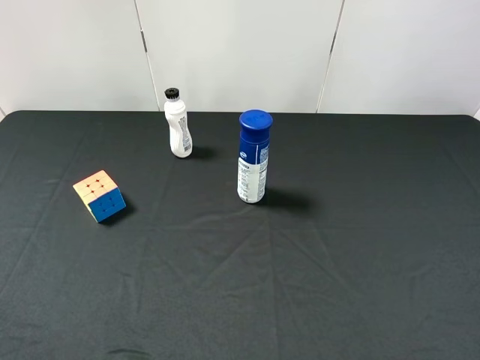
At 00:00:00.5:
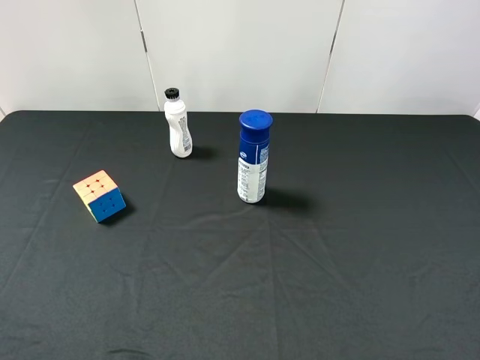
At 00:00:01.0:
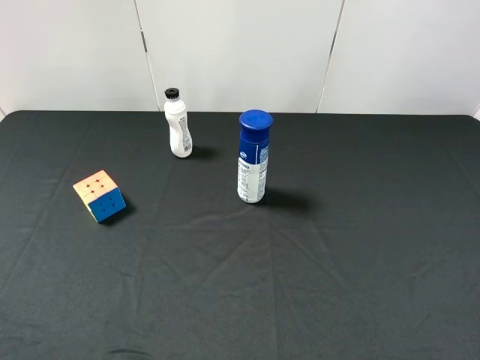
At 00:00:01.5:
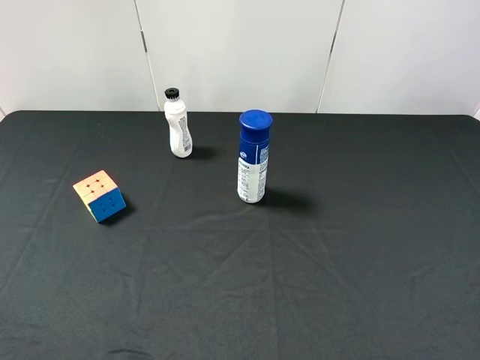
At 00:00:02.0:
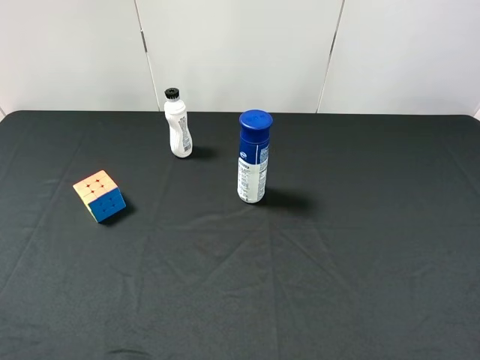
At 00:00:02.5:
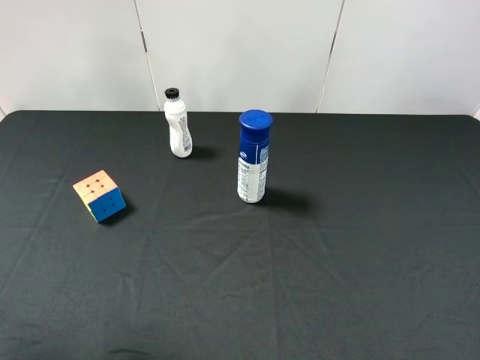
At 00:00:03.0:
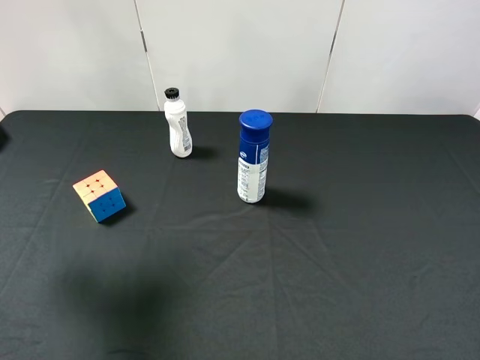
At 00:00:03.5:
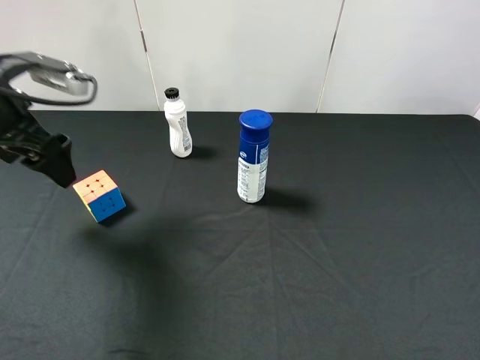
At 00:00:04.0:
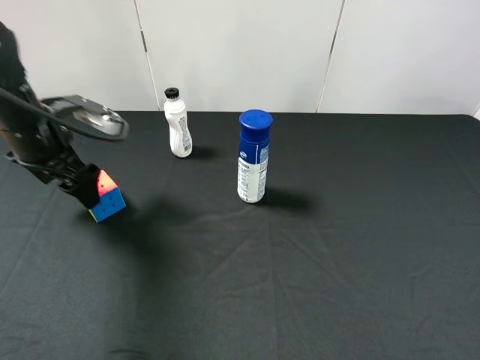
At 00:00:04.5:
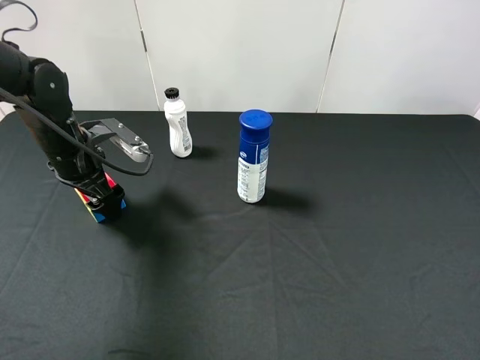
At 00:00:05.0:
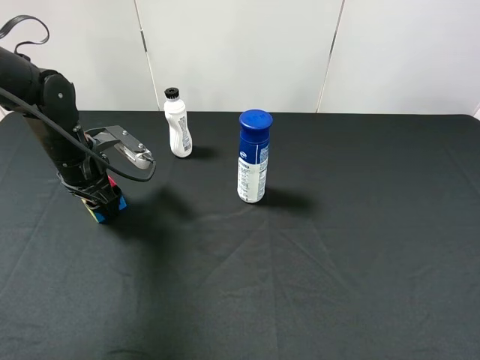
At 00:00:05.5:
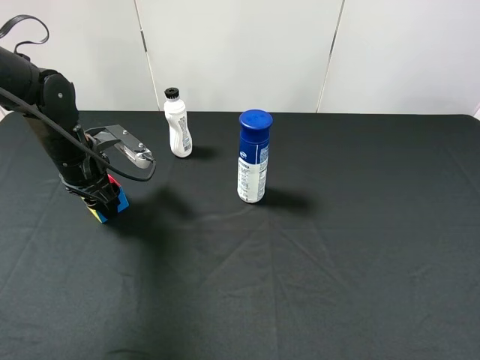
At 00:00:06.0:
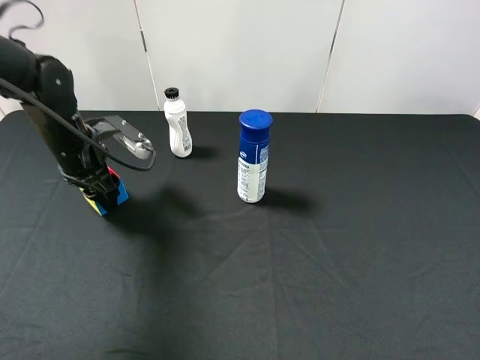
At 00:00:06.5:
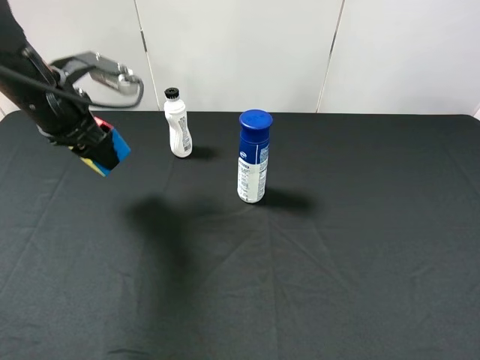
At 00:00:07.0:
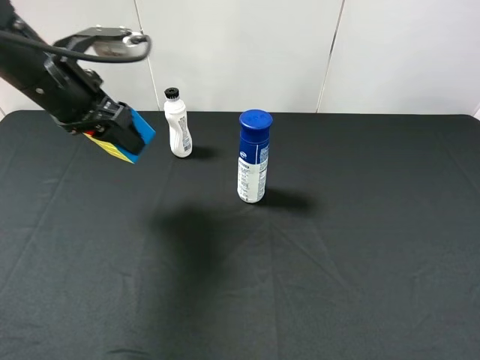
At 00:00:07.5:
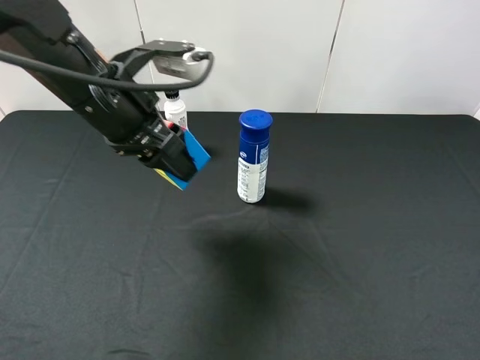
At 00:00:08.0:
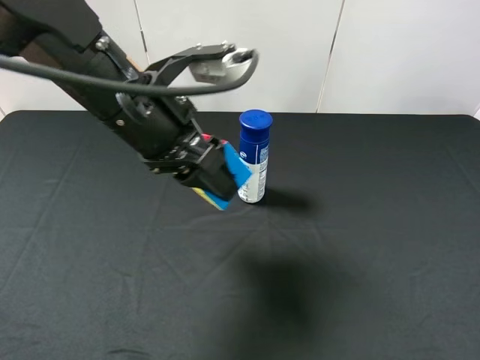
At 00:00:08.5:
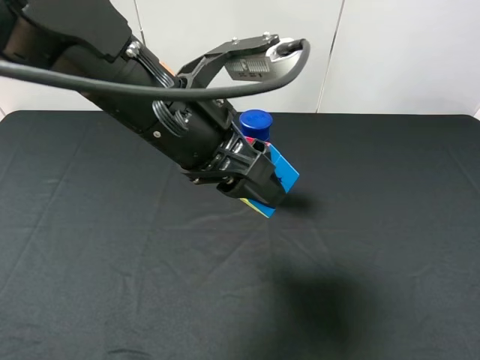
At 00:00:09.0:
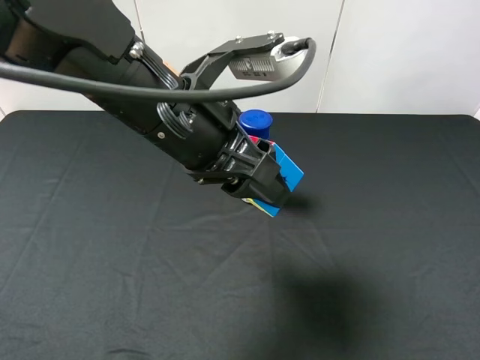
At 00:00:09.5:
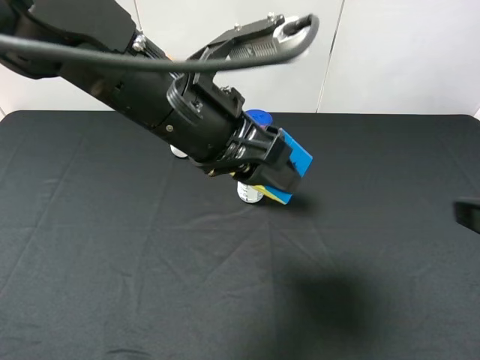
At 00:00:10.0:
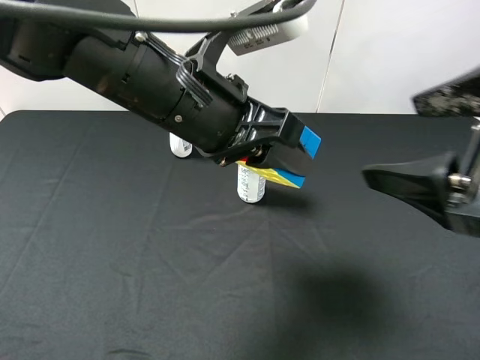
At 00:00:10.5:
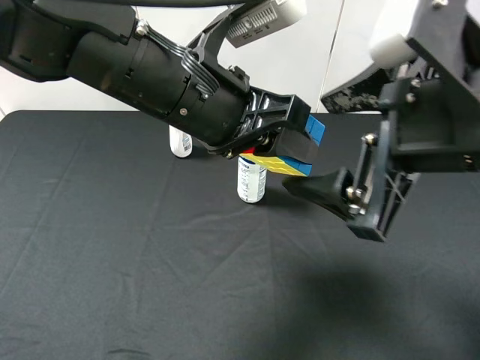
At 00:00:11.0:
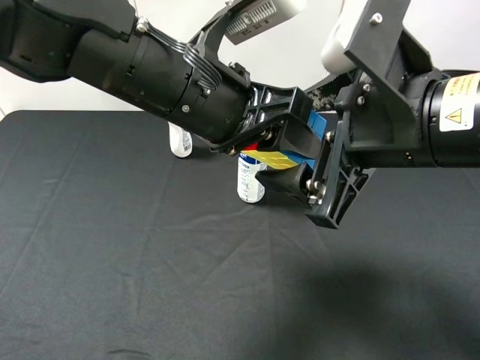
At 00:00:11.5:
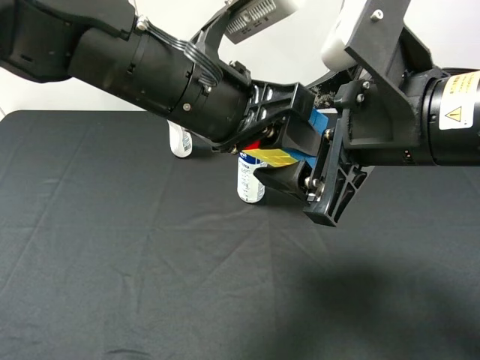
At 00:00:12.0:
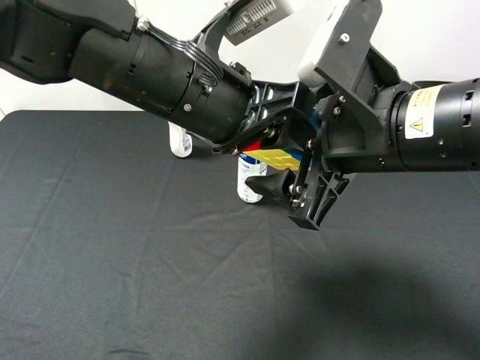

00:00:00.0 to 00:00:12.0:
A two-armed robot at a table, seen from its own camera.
Task of the whole recording: use the left gripper to pick up the item and transfer it from the left gripper to the right gripper.
00:00:00.0 to 00:00:02.0: Both grippers stay about where they are.
00:00:02.0 to 00:00:04.0: The left gripper goes approximately 30 cm forward.
00:00:04.0 to 00:00:06.0: The left gripper changes place by roughly 5 cm, and closes its fingers.
00:00:06.0 to 00:00:08.0: The left gripper goes roughly 20 cm to the right, upward and backward.
00:00:08.0 to 00:00:10.0: The right gripper goes some 15 cm forward and to the left.
00:00:10.0 to 00:00:12.0: The right gripper moves to the left, some 10 cm.

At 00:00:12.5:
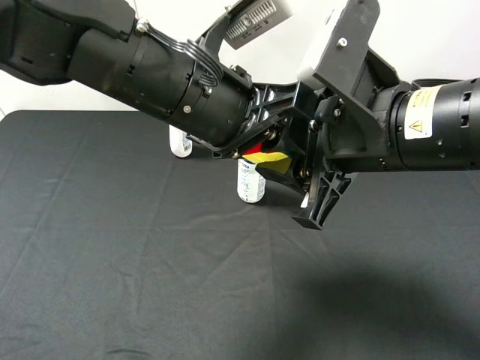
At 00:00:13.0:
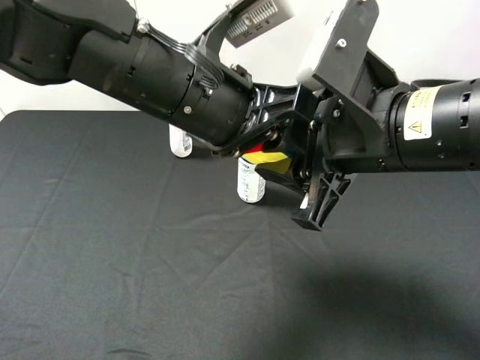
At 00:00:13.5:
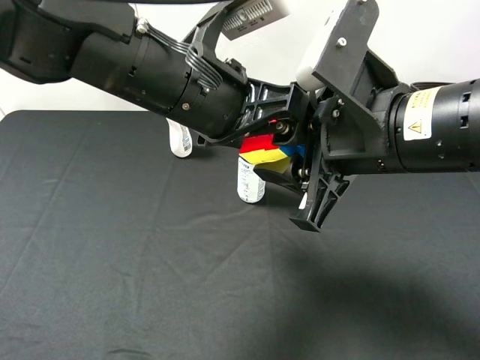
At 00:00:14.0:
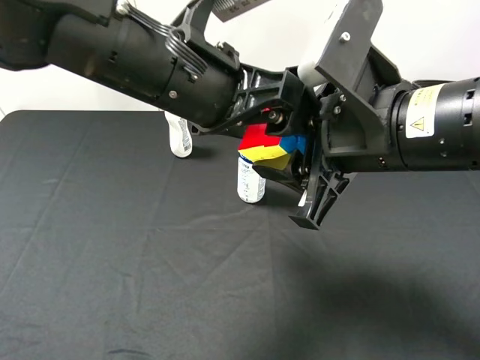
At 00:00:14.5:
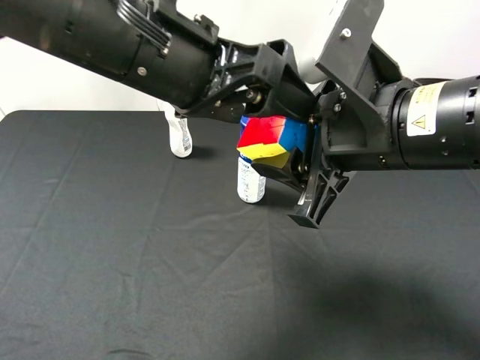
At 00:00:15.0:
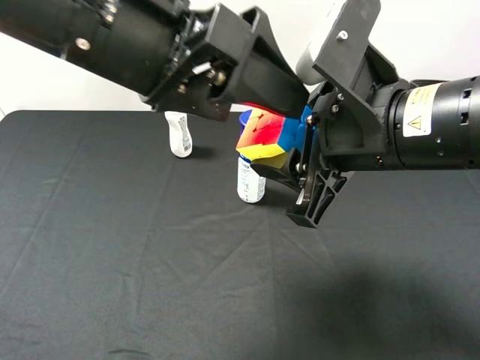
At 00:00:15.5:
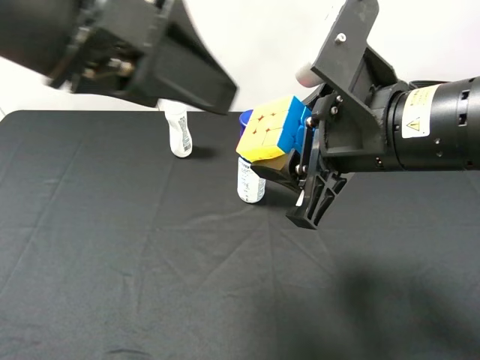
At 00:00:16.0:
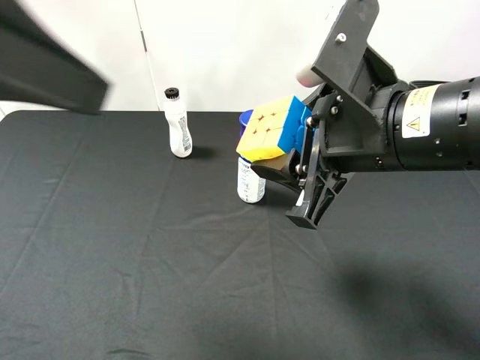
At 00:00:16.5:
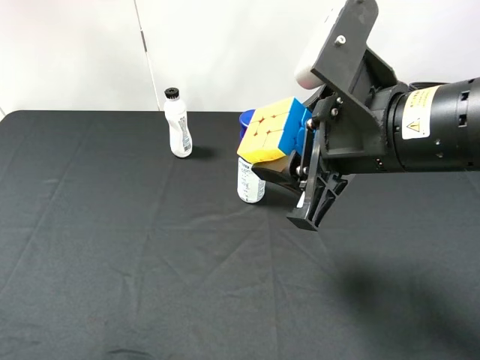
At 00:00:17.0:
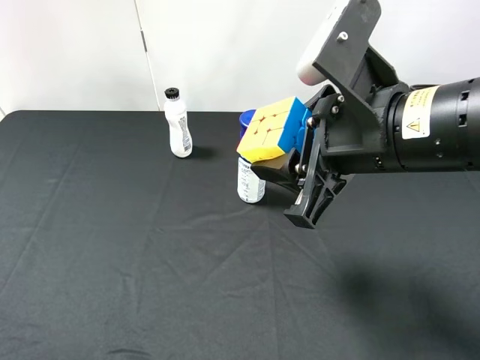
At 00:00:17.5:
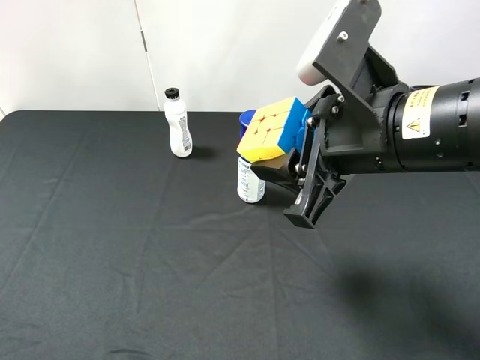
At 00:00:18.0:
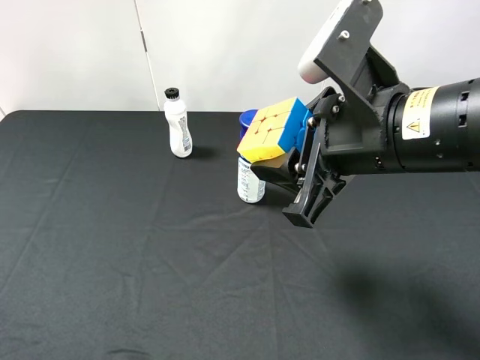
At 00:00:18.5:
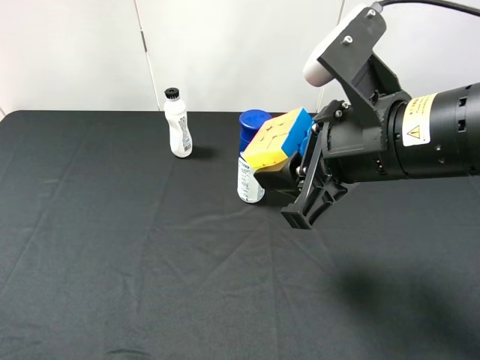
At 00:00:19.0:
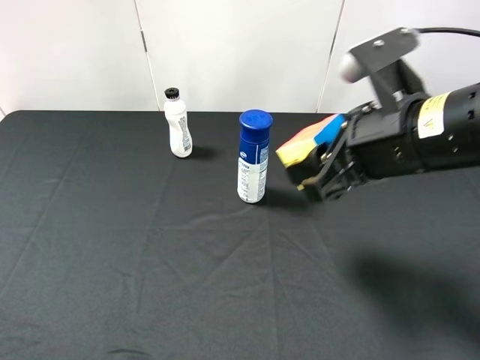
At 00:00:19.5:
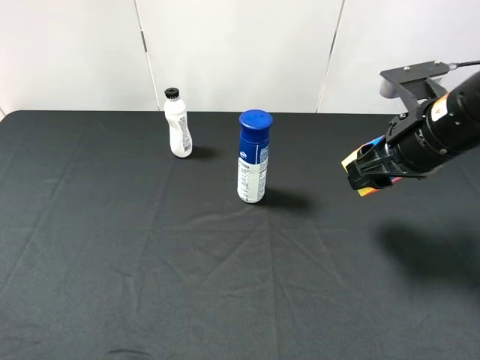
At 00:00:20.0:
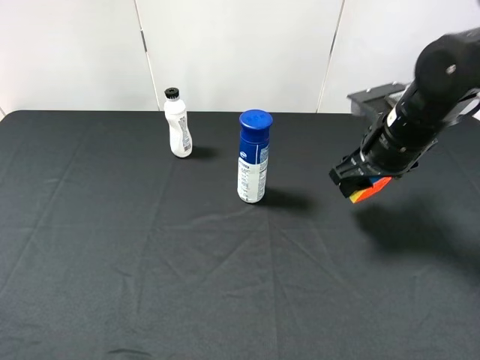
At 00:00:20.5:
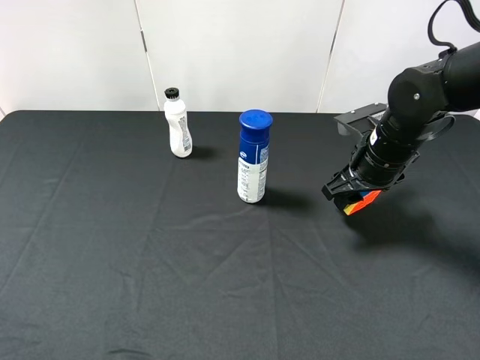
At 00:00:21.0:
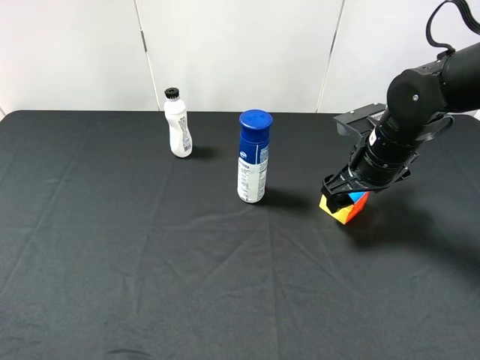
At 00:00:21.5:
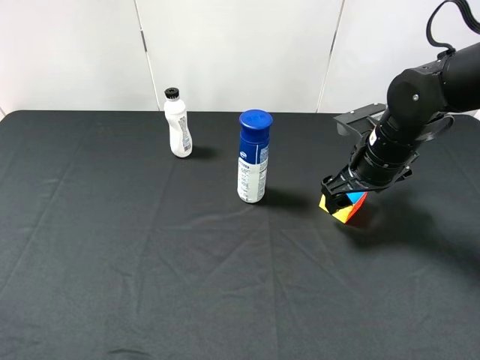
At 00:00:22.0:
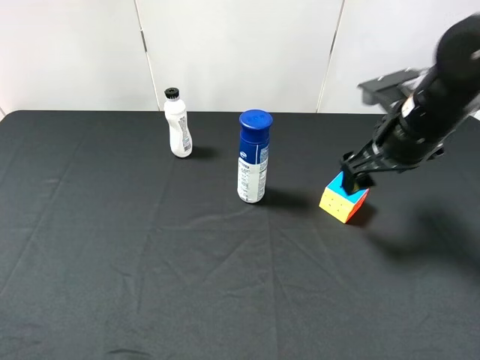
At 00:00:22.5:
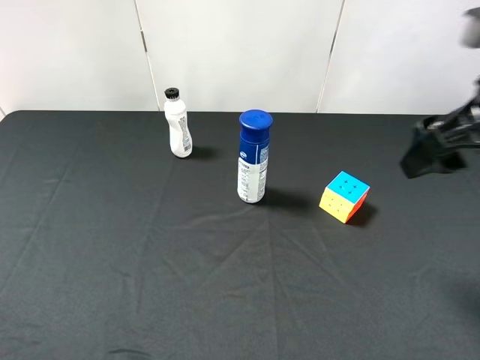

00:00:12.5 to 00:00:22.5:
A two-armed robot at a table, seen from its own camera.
Task of the whole recording: use the left gripper to pick up the item and transfer it from the left gripper to the right gripper.
00:00:12.5 to 00:00:14.5: The left gripper opens up.
00:00:14.5 to 00:00:16.5: The left gripper is displaced to the left, backward and upward by roughly 25 cm.
00:00:16.5 to 00:00:18.5: The left gripper shifts about 15 cm downward and backward.
00:00:18.5 to 00:00:20.5: The right gripper heads forward, downward and to the right, covering roughly 20 cm.
00:00:20.5 to 00:00:22.5: The right gripper is displaced upward and backward by about 20 cm, and opens.
